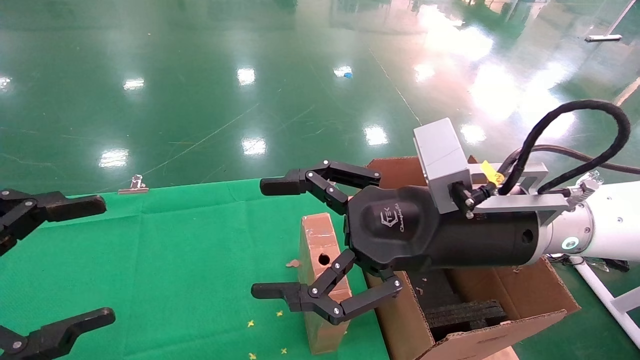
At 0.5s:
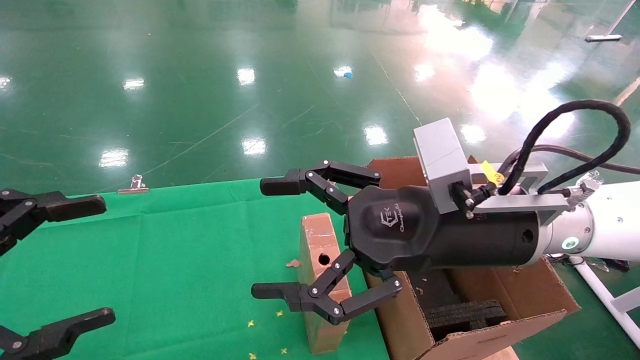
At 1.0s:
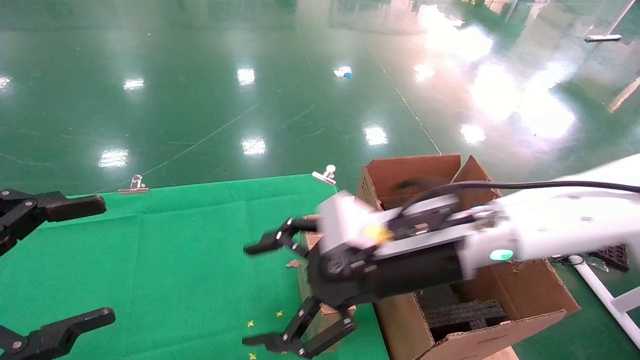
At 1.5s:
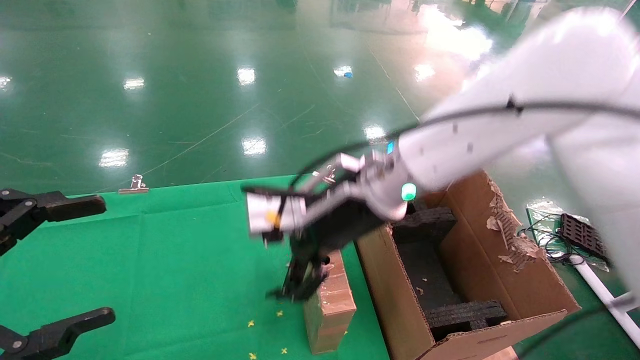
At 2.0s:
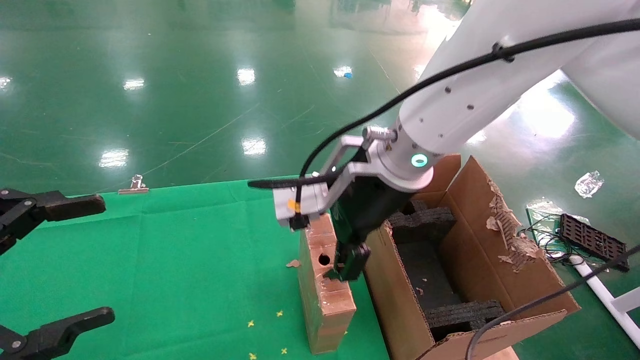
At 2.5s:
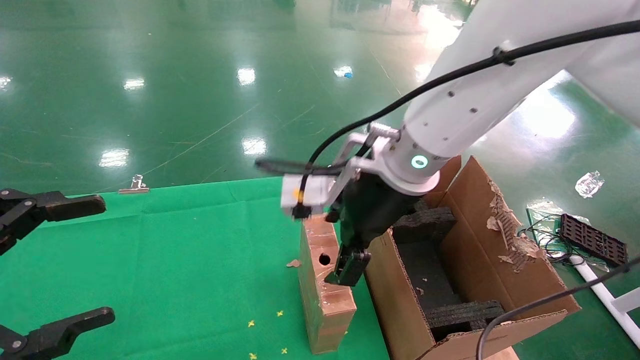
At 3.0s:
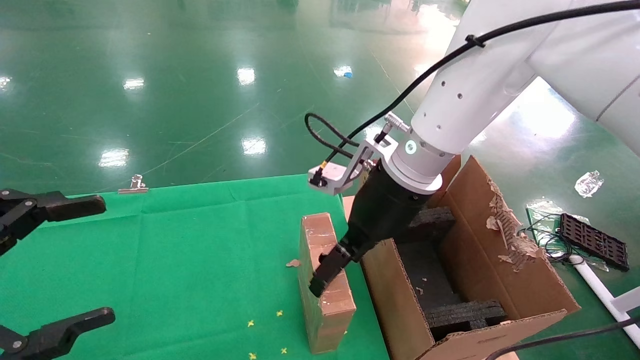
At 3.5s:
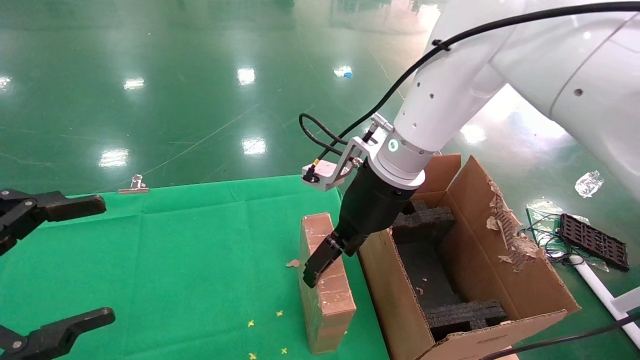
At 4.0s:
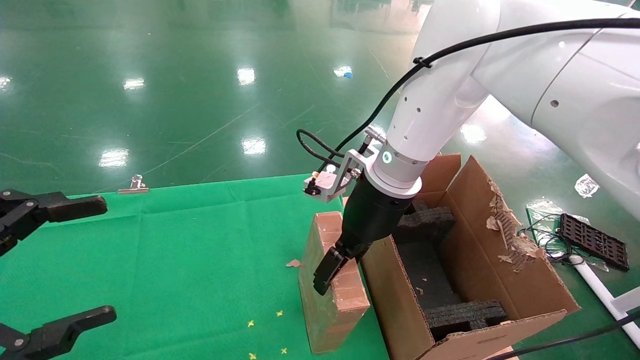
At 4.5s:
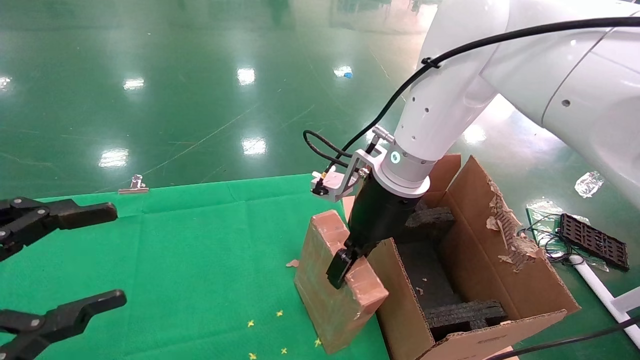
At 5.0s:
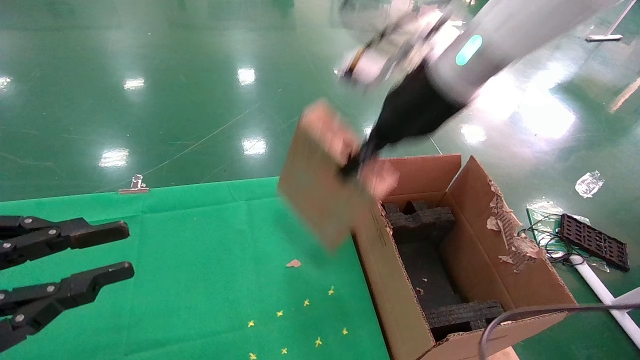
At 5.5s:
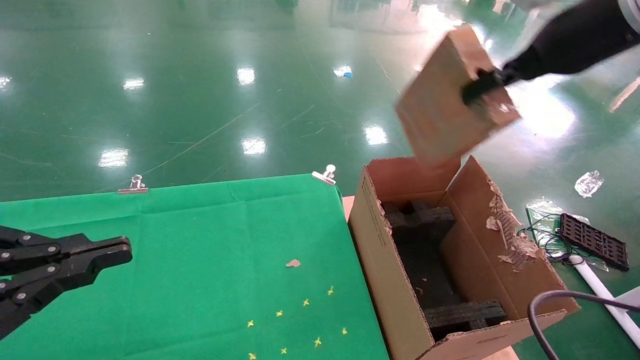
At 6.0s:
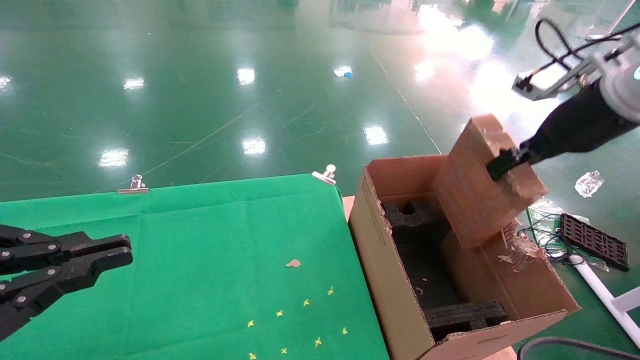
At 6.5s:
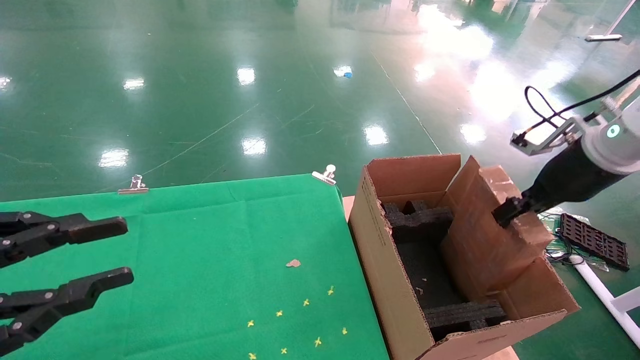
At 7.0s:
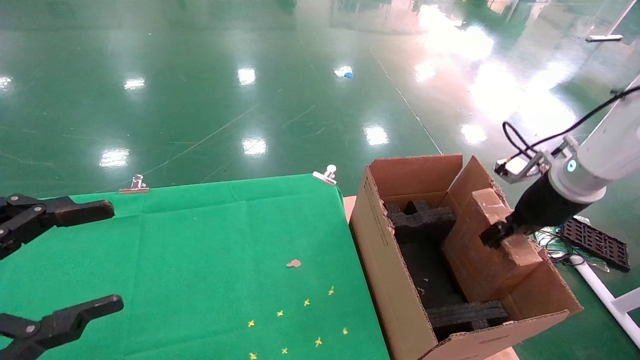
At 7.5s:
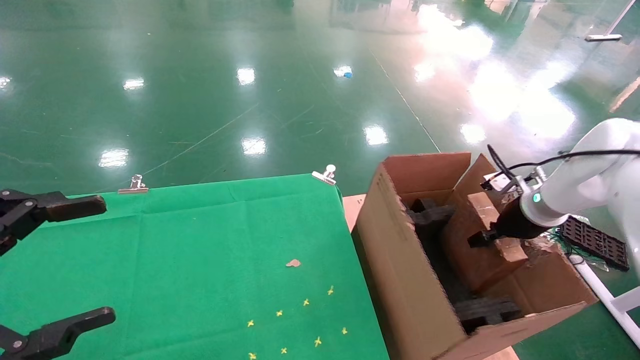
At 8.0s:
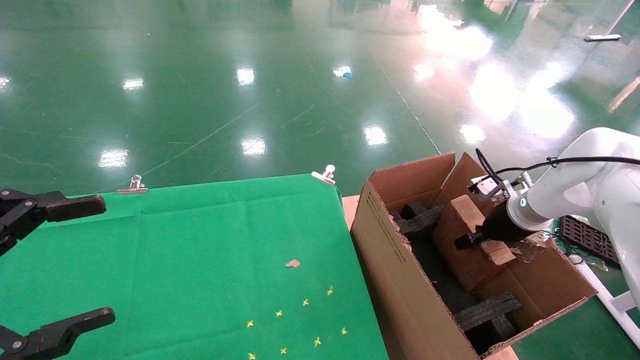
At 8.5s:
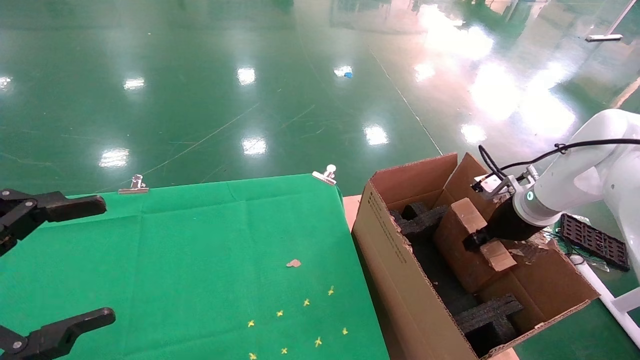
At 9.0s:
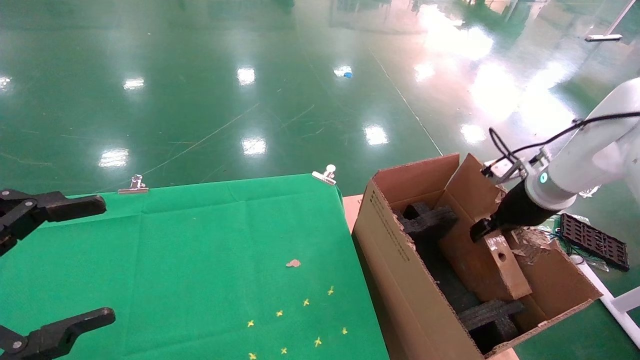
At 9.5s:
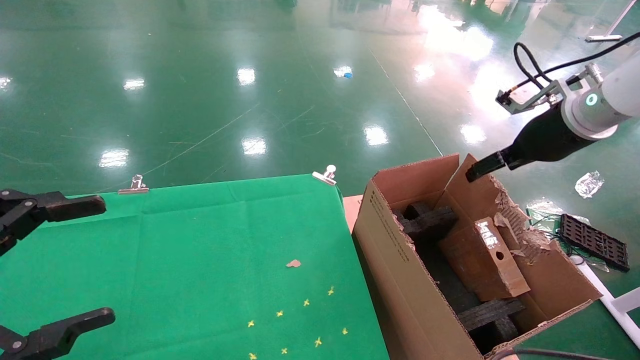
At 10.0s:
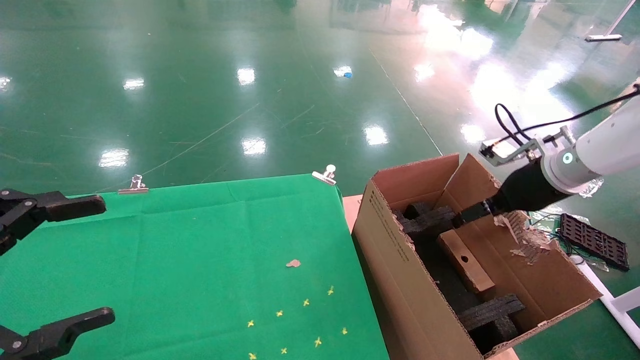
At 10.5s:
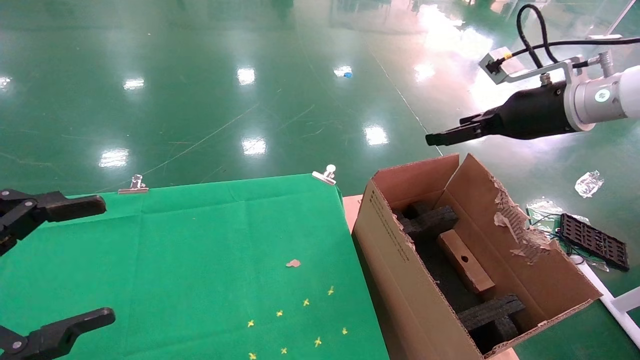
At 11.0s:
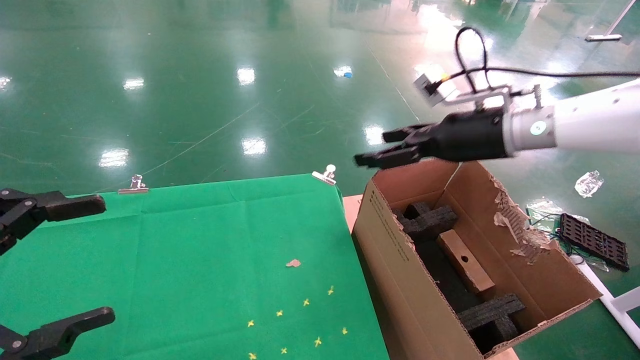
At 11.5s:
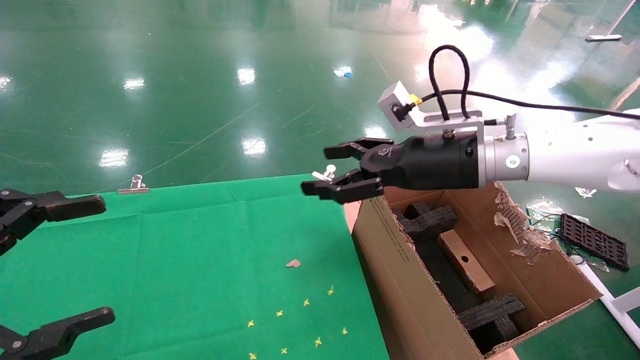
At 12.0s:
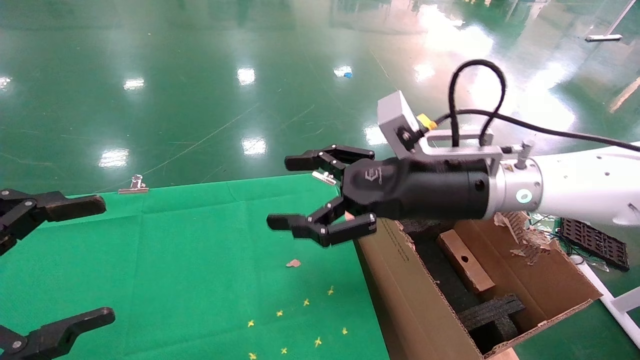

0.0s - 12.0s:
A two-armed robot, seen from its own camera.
Task of the whole recording: using a robotic arm to pick up a cardboard box and palace it the carton.
Step, 1.0s - 4.5s: Pick up the mouse and the power cord paper box.
Step, 5.0s - 9.0s: Place the mouse and the power cord paper box into the container.
0.0s - 2.0s: The right gripper heads to the left and forward, covering approximately 10 cm.
2.0s - 4.0s: The right gripper shifts some 5 cm forward.
4.0s - 6.0s: The left gripper closes its fingers, while the right gripper goes approximately 25 cm to the right, and closes up.
6.0s - 8.0s: The right gripper travels downward and forward by some 20 cm; the left gripper opens.
8.0s - 10.0s: The right gripper moves upward, about 10 cm, and opens its fingers.
10.0s - 12.0s: The right gripper goes about 20 cm to the left.

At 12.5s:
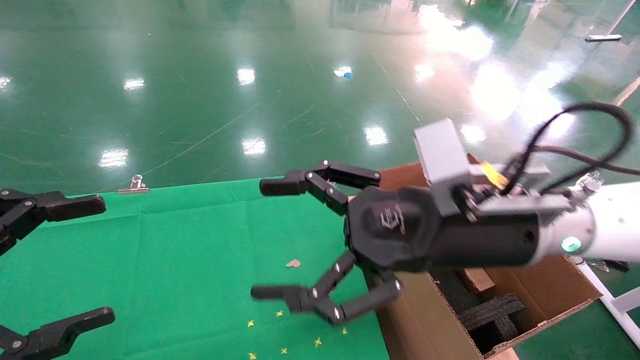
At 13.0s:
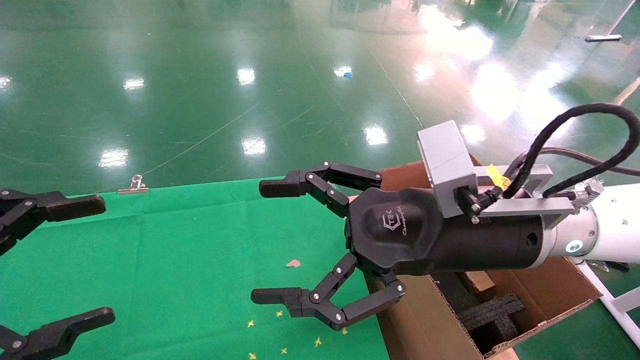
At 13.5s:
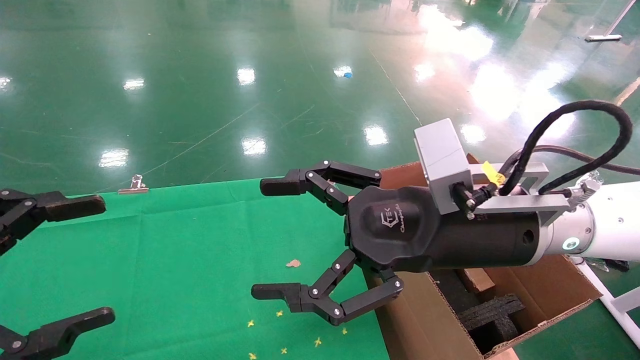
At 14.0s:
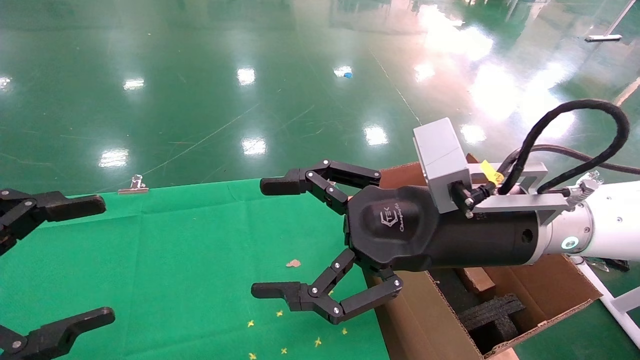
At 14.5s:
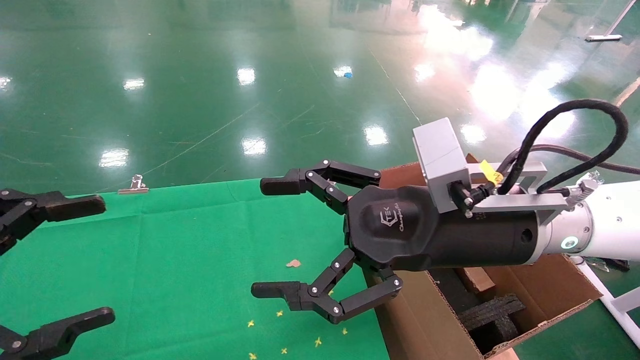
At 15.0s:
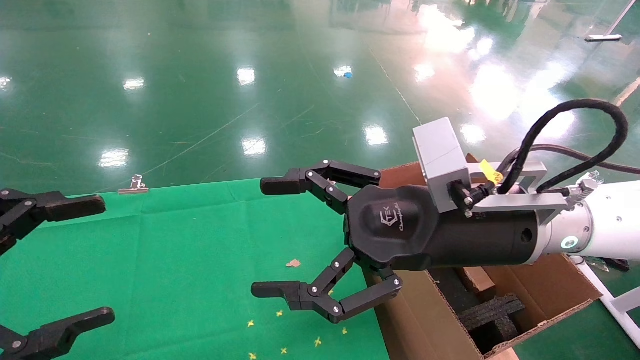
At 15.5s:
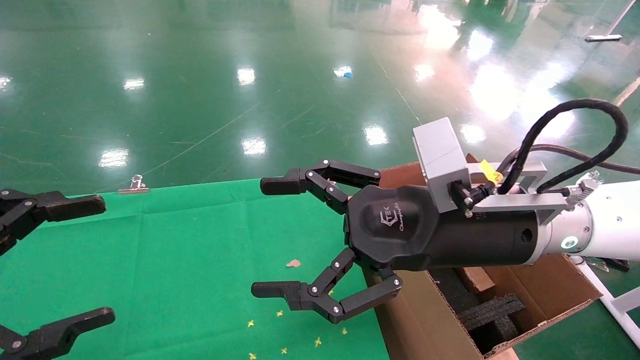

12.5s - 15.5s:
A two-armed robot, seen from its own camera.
Task of the whole recording: using a robotic arm to pick up a cardboard box and palace it the carton.
12.5s - 15.5s: Neither gripper changes place.
